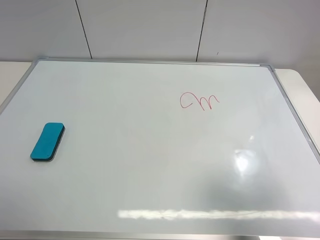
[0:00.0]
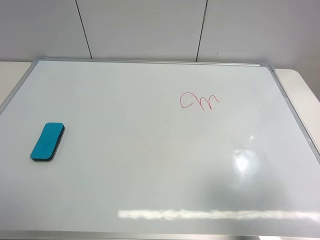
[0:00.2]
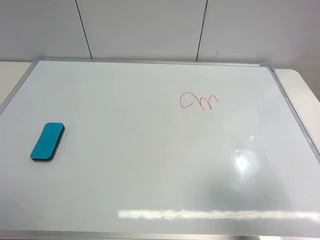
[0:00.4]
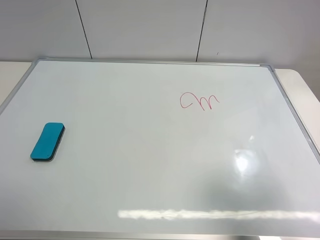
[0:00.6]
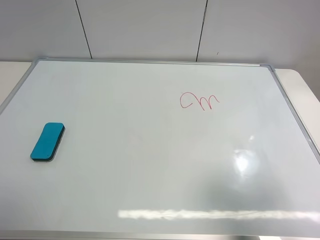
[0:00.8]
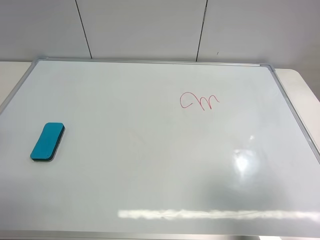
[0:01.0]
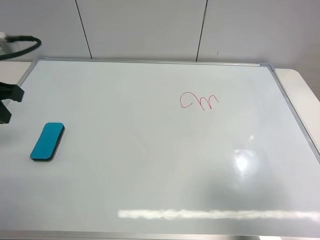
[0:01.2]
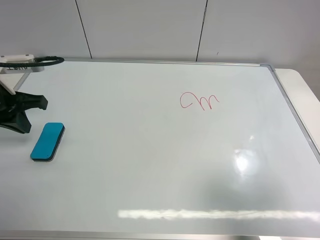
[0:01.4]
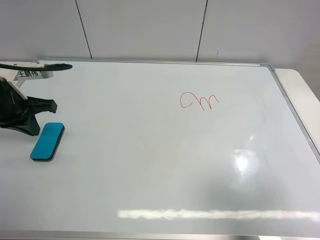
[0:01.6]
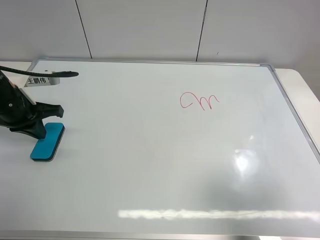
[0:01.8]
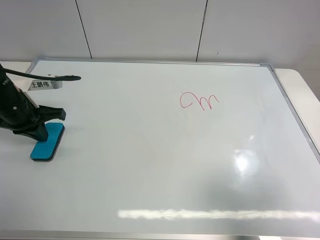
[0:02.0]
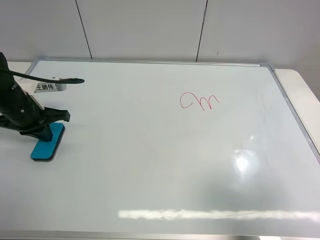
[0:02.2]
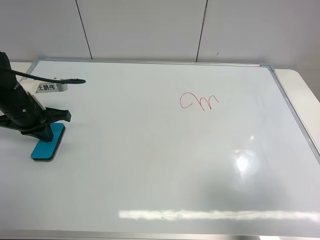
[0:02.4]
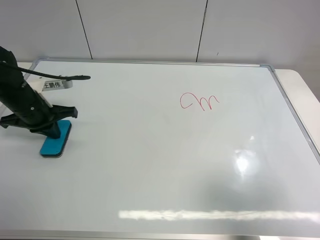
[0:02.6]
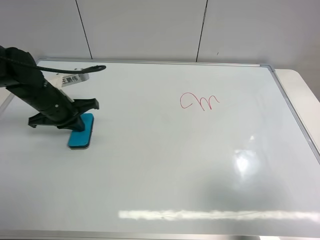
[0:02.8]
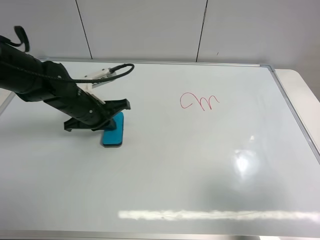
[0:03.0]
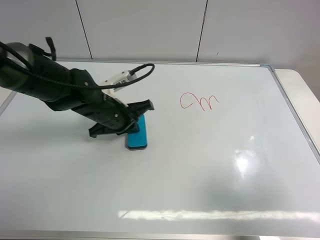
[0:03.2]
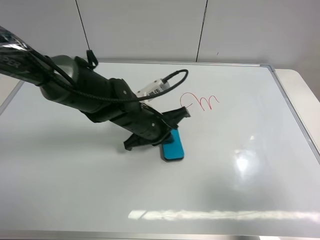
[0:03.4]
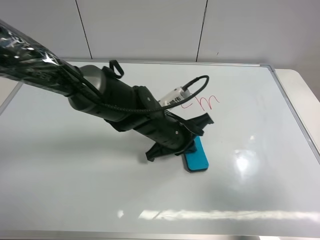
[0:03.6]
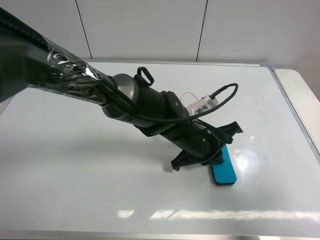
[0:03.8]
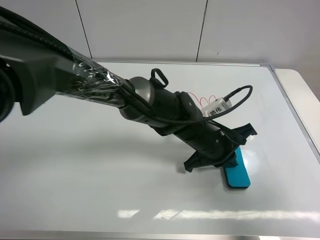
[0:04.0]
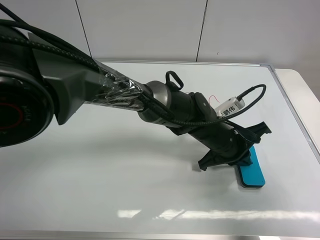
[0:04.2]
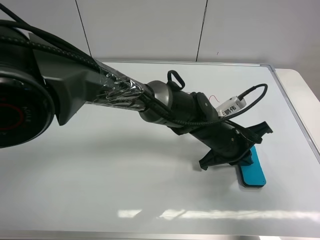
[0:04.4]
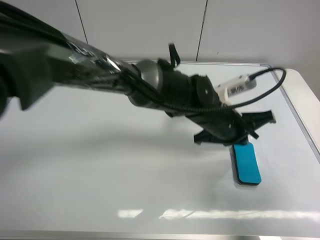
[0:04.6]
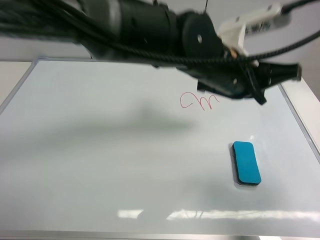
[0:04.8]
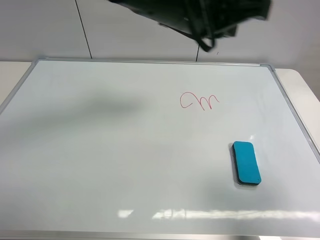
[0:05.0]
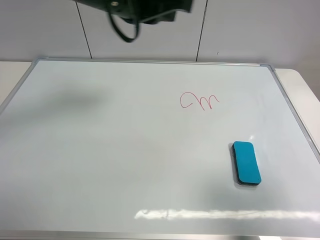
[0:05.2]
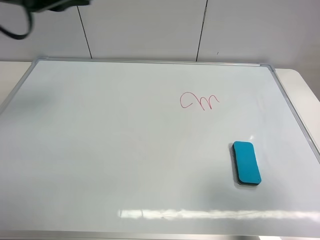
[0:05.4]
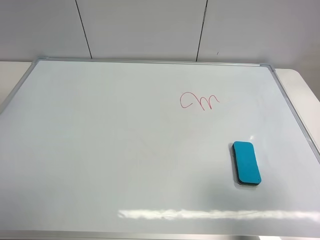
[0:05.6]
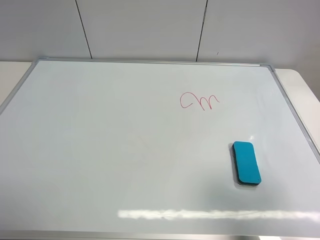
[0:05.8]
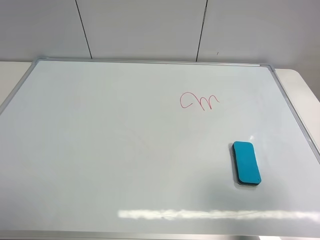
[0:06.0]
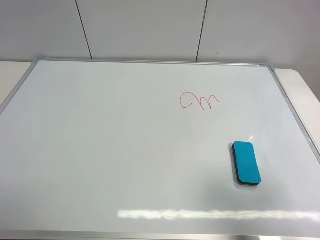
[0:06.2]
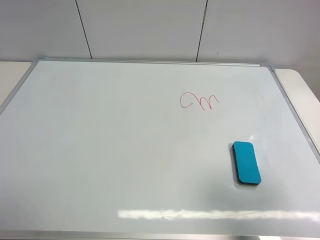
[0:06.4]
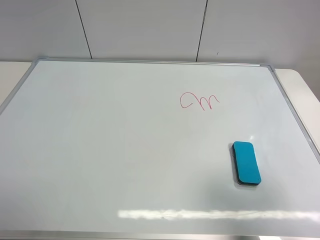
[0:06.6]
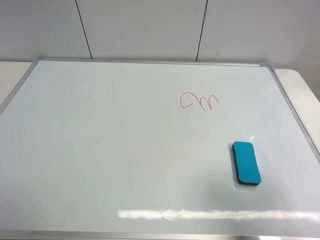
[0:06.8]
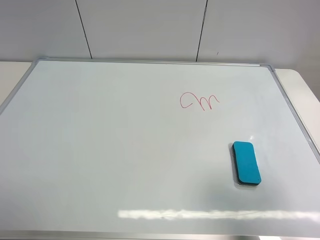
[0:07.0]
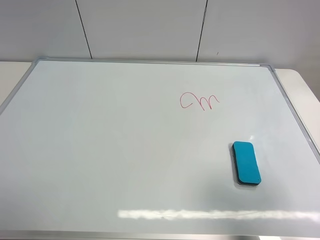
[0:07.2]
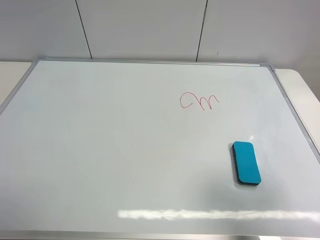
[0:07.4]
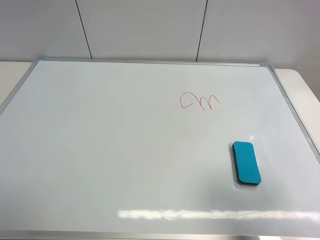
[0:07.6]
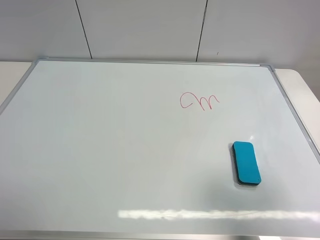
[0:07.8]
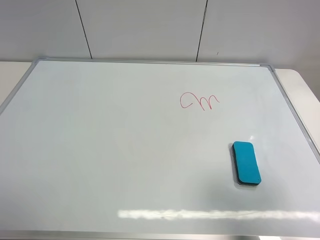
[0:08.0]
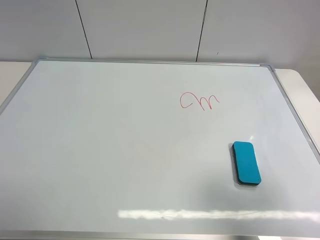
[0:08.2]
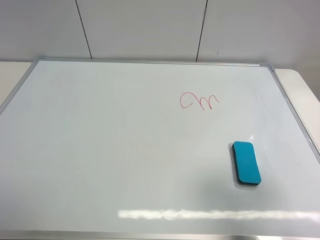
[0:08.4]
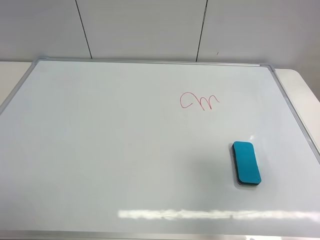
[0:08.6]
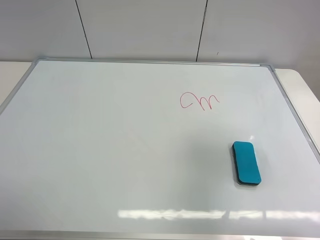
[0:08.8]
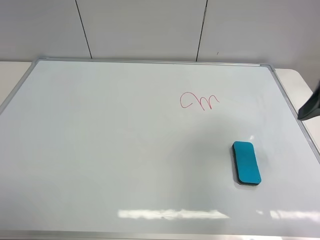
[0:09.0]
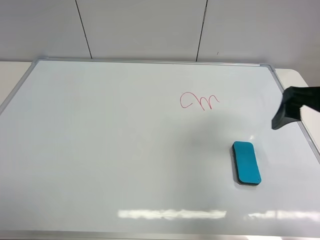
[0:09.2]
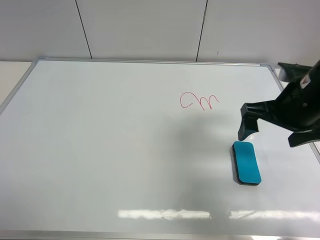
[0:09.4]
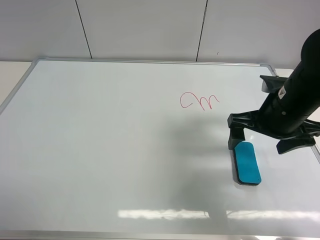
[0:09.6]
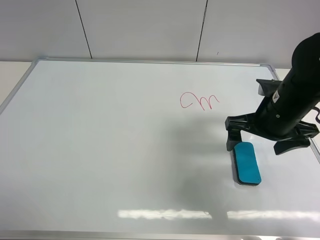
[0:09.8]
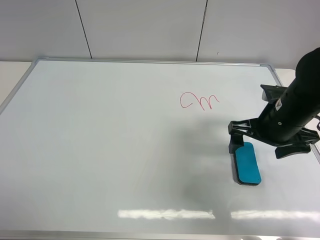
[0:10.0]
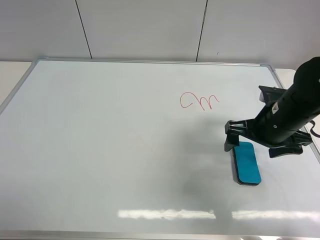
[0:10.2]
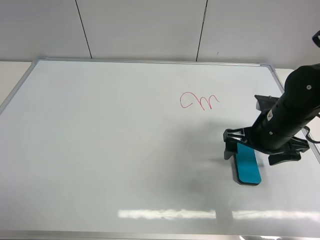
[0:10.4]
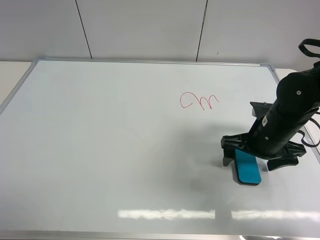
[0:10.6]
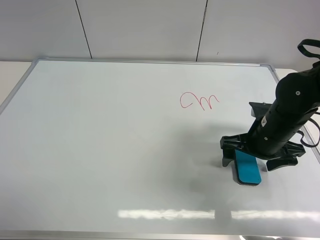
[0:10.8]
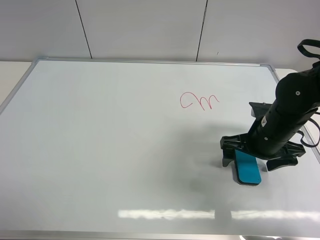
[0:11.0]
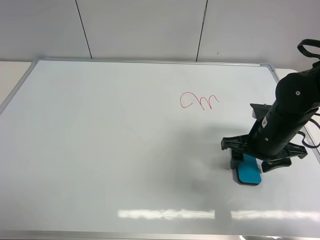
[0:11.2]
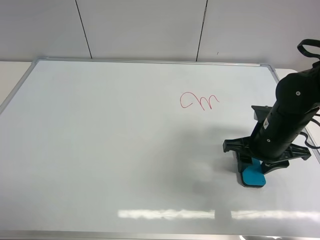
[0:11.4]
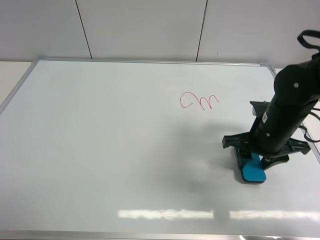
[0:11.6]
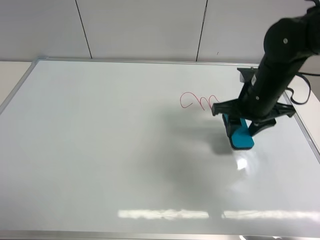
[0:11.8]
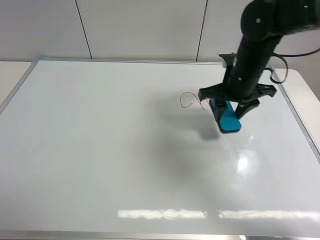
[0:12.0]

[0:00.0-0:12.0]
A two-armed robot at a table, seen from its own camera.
Task of the whole recording: use the left gripper to place the eraser in the right, use the right gripper to pick up the eraser, wipe the notes on the whiteboard clean, and then put it down.
Step, 0:04.6 to 0:11.6: Pick up the board eraser with right gripper.
0:00.0 to 0:01.6: The left gripper travels forward by some 25 cm, and closes up.
0:01.6 to 0:03.0: The left gripper moves to the right and downward, approximately 15 cm.
0:03.0 to 0:04.4: The left gripper shifts some 25 cm to the right.
0:04.4 to 0:06.0: The left gripper goes about 50 cm to the left, upward and backward, and opens.
0:07.6 to 0:09.0: The right gripper travels forward by some 15 cm.
0:09.0 to 0:10.4: The right gripper goes roughly 20 cm downward, to the left and forward.
0:10.4 to 0:12.0: The right gripper goes some 10 cm forward and to the left, and closes its fingers.

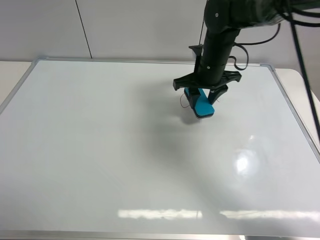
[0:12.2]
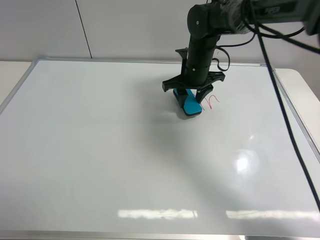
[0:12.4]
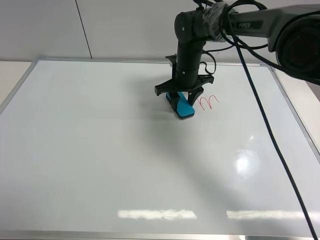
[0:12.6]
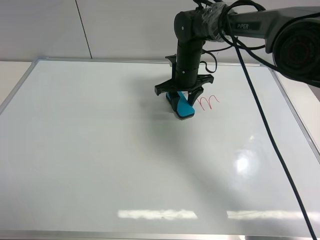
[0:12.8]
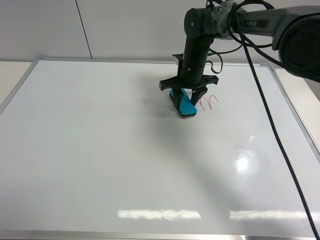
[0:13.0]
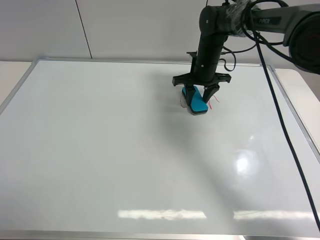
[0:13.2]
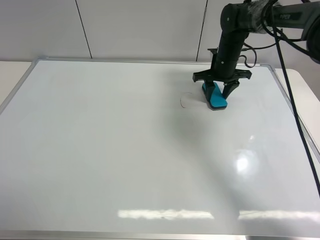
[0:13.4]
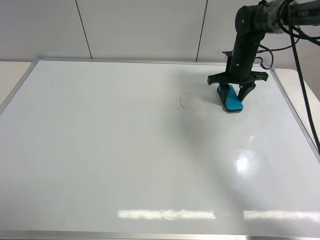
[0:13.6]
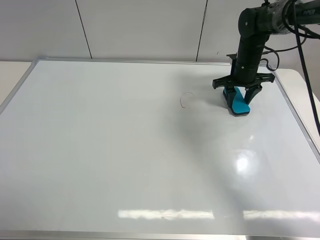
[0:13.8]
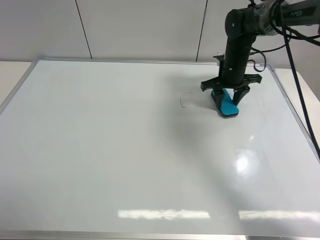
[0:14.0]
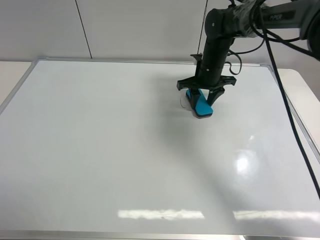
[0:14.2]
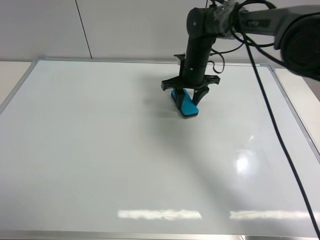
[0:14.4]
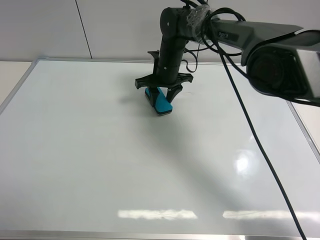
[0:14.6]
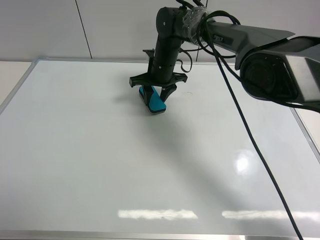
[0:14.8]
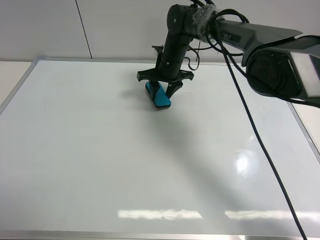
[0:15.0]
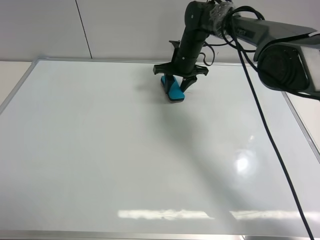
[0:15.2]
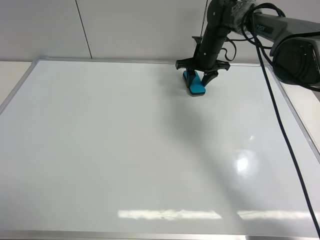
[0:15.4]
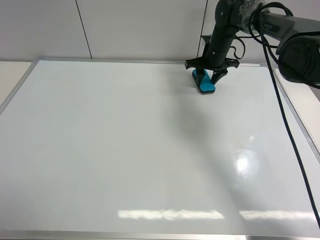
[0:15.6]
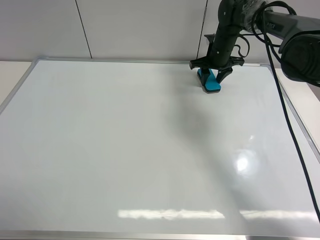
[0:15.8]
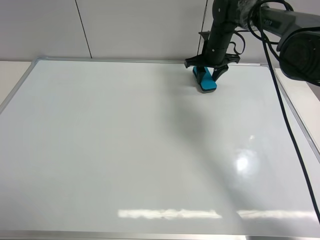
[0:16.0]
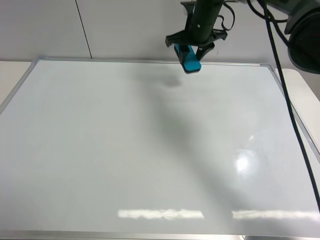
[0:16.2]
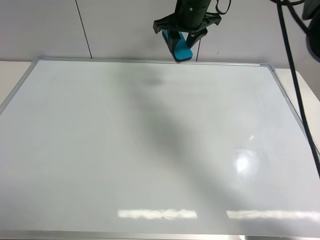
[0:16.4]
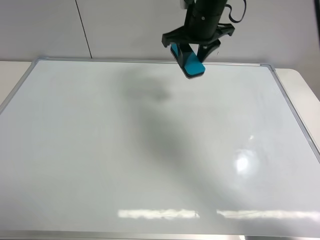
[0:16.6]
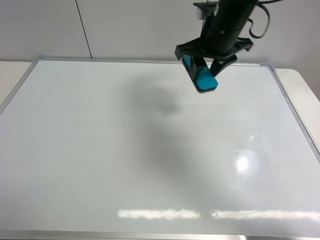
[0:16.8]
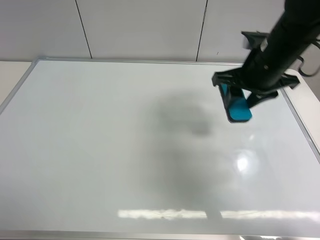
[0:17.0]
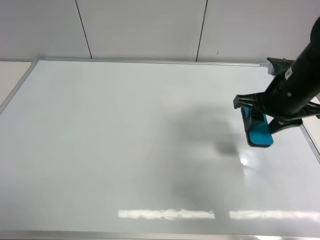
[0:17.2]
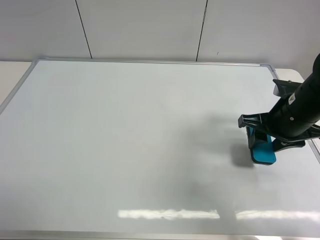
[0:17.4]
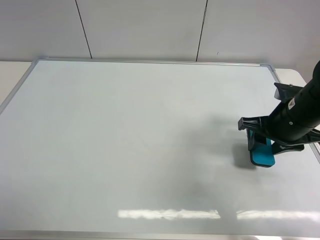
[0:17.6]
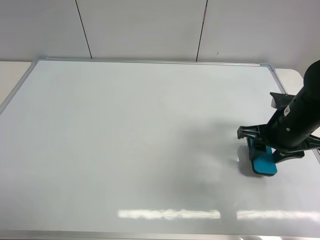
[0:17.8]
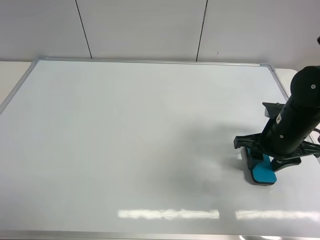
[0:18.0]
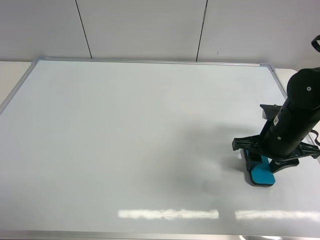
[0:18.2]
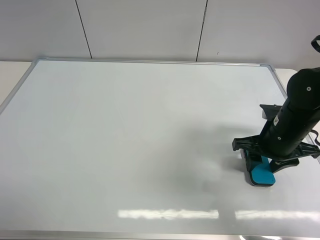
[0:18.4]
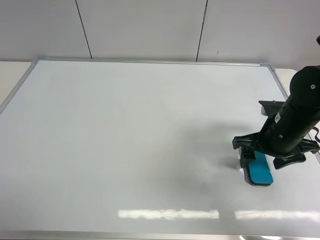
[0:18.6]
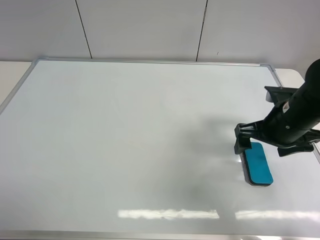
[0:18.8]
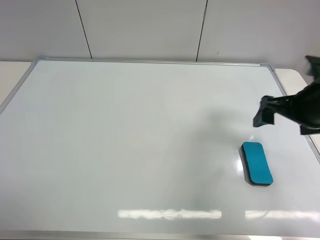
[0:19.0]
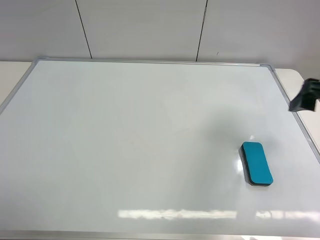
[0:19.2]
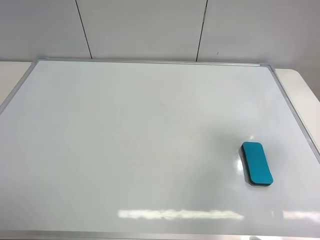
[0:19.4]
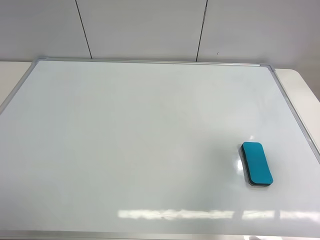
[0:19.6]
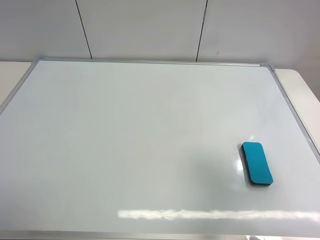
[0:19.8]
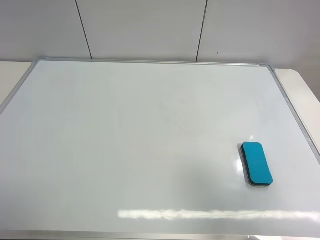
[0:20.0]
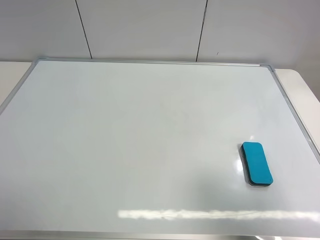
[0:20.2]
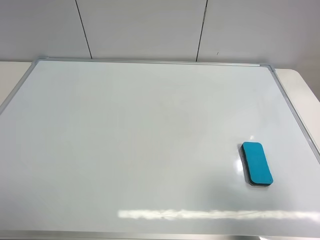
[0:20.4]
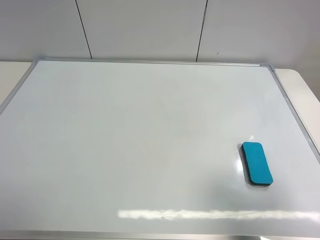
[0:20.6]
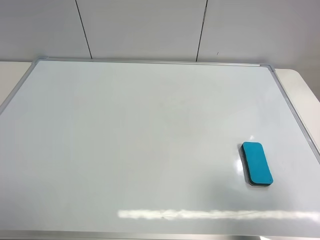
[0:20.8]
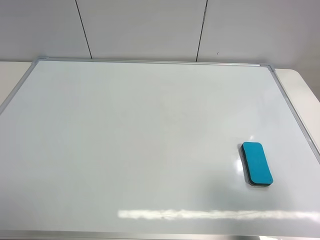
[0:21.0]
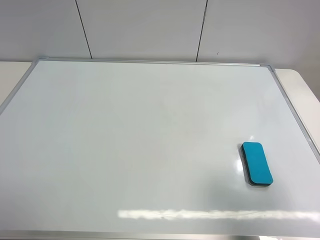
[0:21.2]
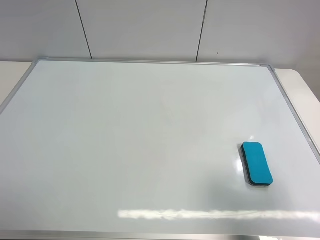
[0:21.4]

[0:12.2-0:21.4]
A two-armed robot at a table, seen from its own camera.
Task of the whole recording: use the left gripper to place the eraser in the right, use the right gripper to pick up the eraser, wipe the notes on the whiteboard clean, and then put it down.
Step, 0:12.2 to 0:15.6: Wipe off the writing on the board with right gripper.
Step, 0:15.8 to 0:18.6: Place the board eraser on the right side of board with right gripper.
0:12.2 to 0:13.8: The right gripper moves to the right and forward, approximately 15 cm.
0:13.8 to 0:15.2: The right gripper heads to the left, covering approximately 15 cm.
0:15.2 to 0:16.8: The right gripper travels upward and backward by some 20 cm.
0:16.8 to 0:18.4: The right gripper moves downward, backward and to the right, some 25 cm.
0:18.4 to 0:19.8: The right gripper travels upward and backward by roughly 25 cm, and opens.
0:19.8 to 0:21.4: The right gripper changes place by approximately 5 cm.
